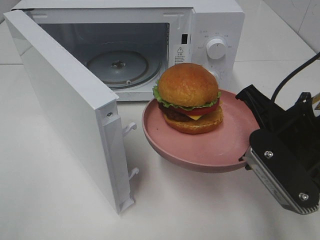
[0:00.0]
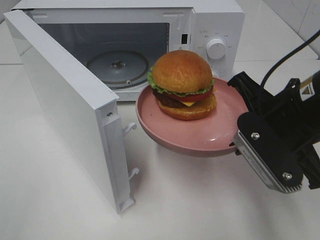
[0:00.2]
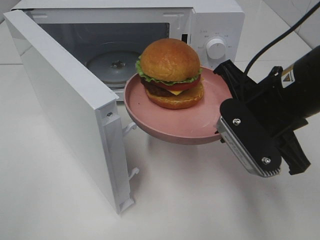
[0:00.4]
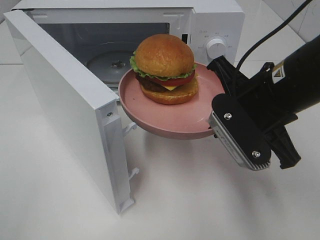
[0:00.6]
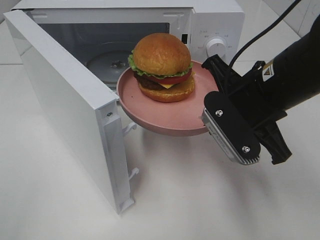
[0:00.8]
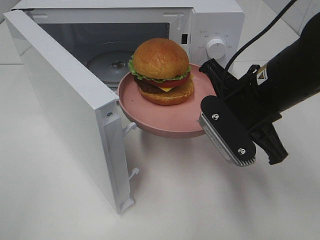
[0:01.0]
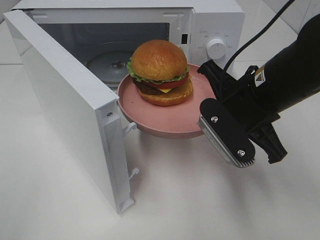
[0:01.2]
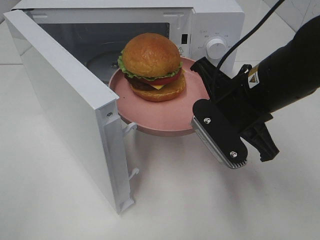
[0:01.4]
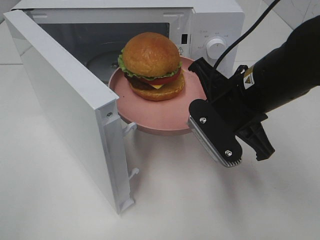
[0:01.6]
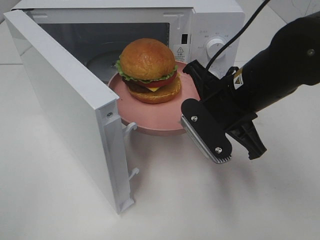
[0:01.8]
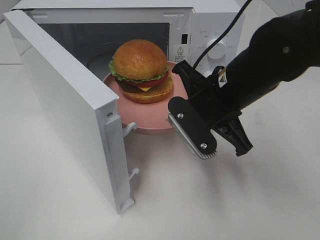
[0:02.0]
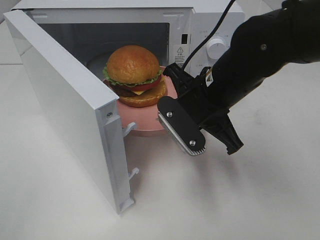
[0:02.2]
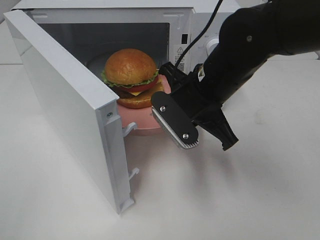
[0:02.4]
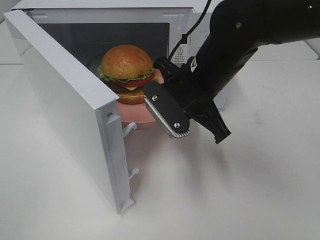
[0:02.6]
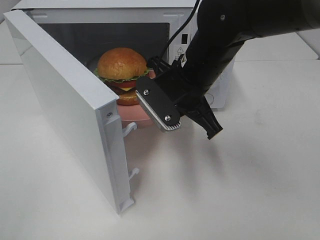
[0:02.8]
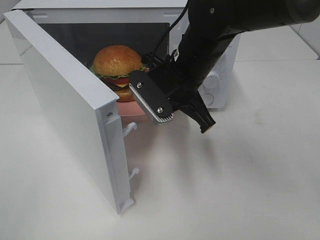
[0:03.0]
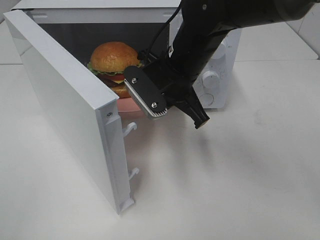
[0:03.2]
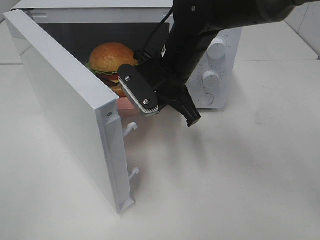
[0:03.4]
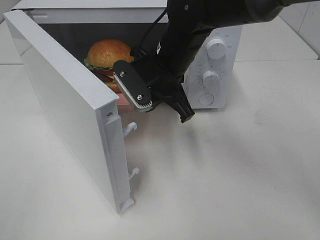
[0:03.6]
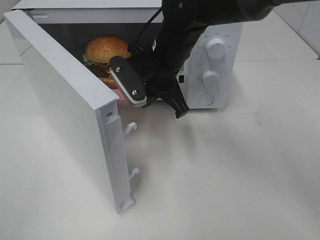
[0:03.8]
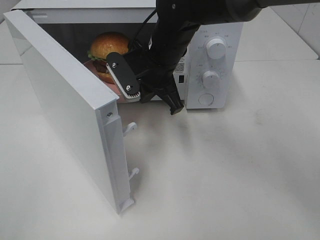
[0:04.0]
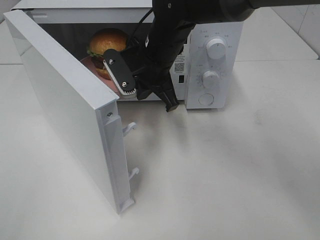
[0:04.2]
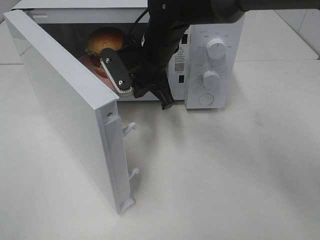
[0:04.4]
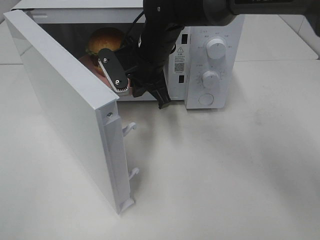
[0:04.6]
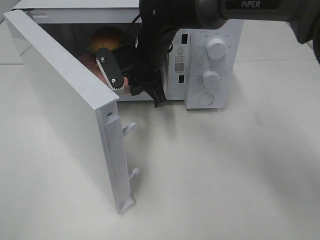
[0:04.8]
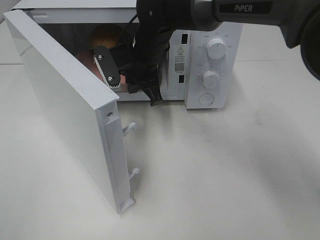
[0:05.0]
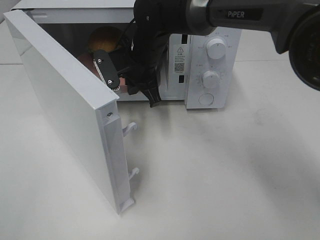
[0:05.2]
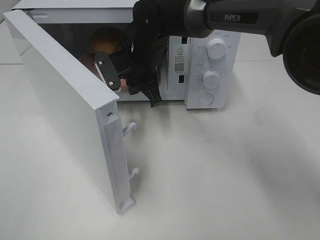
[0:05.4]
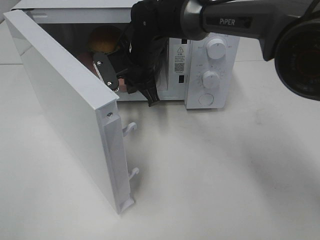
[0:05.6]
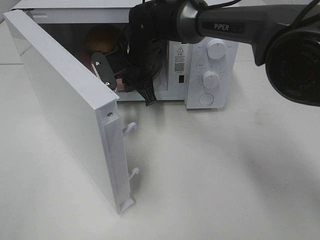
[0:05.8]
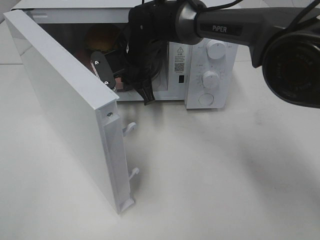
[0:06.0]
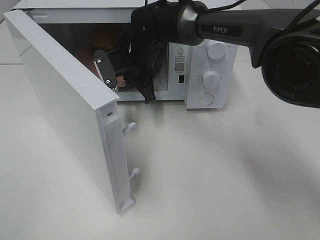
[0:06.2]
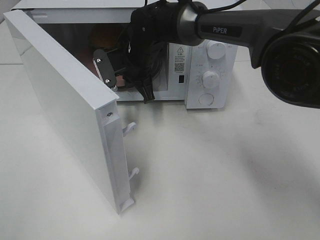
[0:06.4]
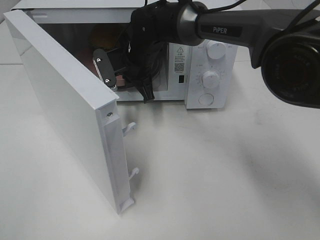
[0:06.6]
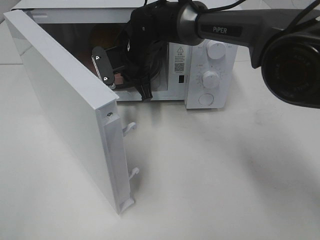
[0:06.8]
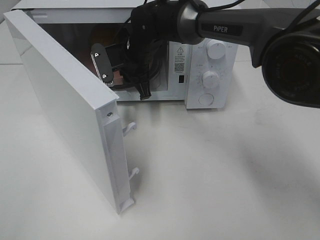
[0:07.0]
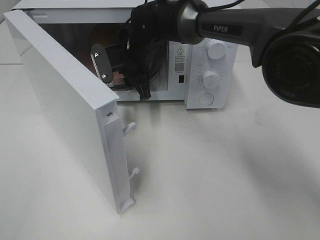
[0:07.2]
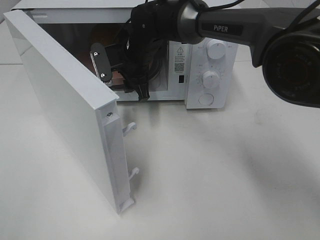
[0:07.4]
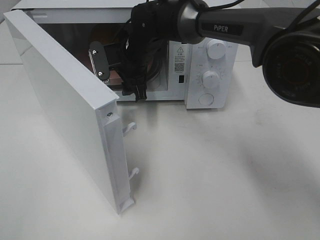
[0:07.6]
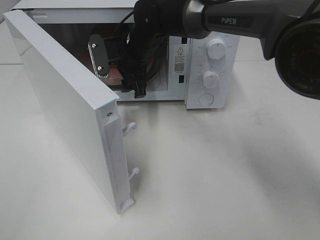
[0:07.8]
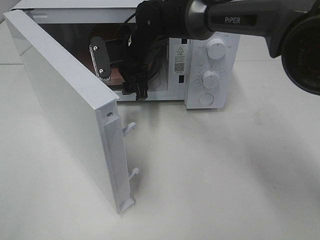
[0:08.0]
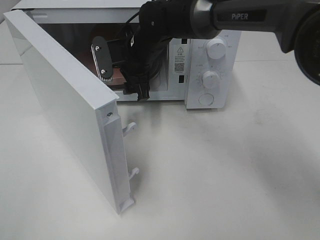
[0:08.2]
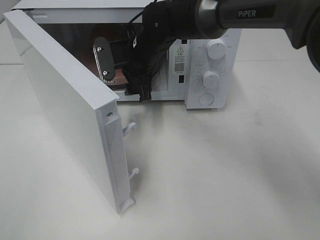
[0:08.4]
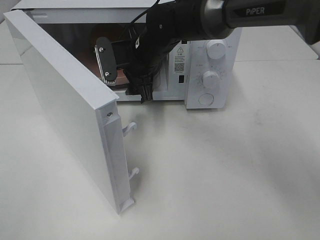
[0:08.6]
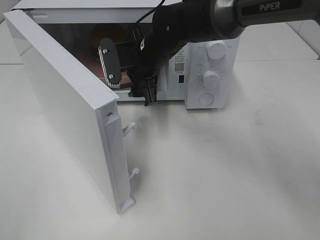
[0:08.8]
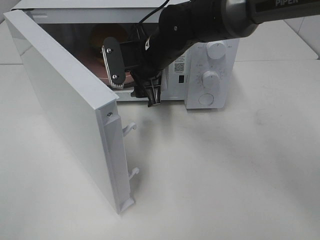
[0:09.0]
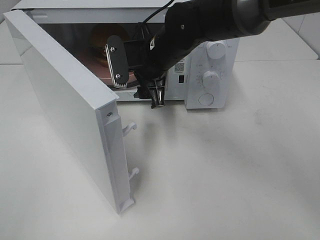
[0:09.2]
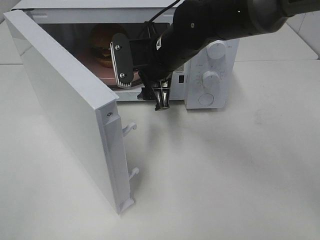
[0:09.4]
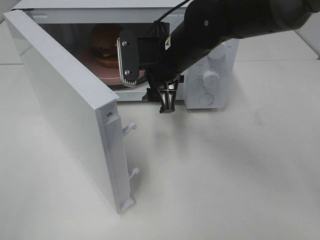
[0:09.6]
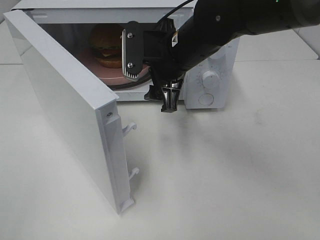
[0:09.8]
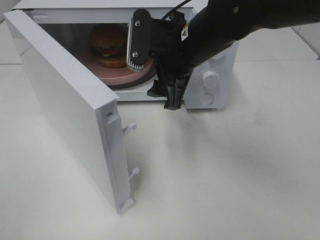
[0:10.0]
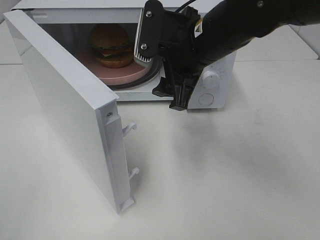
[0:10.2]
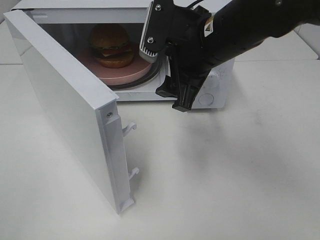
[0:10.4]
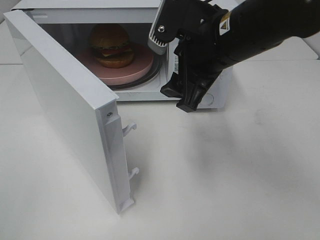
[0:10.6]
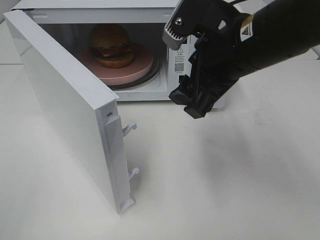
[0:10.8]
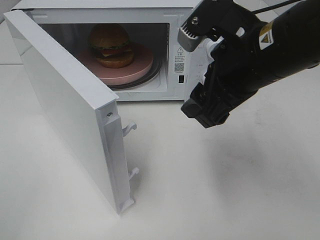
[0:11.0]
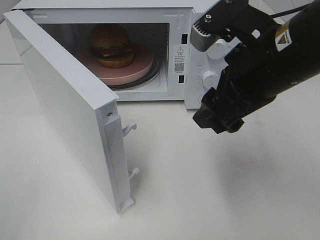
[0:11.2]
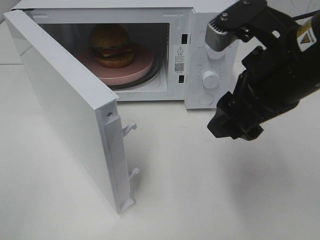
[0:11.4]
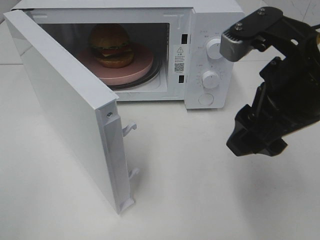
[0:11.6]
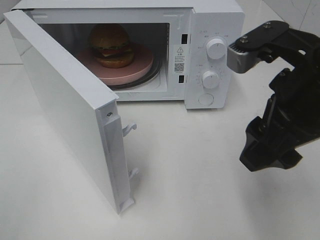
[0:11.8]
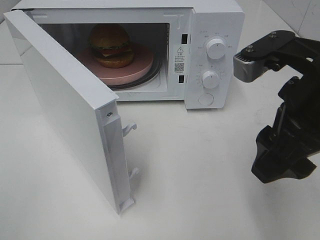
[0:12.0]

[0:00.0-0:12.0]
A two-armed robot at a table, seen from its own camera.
Task of the whole recording: Heat the burger.
Step, 0:00.0 to 0:07.0: Right hand: place the plate in the microwave.
0:00.0 to 0:01.6: The right gripper travels forward and to the left by approximately 10 cm.
0:01.6 to 0:03.0: The right gripper goes about 10 cm to the left and forward.
0:03.0 to 0:04.4: The right gripper travels forward by some 5 cm.
0:04.4 to 0:06.0: The right gripper shifts approximately 5 cm forward.
0:06.0 to 0:07.6: The right gripper opens up.
0:07.6 to 0:09.0: The right gripper goes roughly 5 cm backward.
0:09.0 to 0:10.4: The right gripper heads backward, to the right and upward, covering approximately 15 cm.
0:10.4 to 0:12.0: The right gripper travels backward and to the right by about 15 cm.

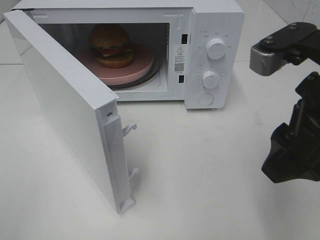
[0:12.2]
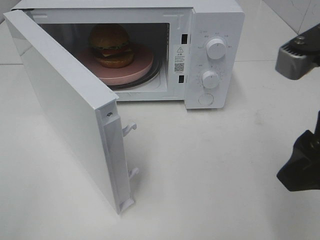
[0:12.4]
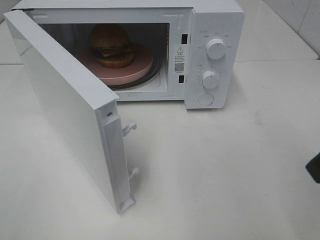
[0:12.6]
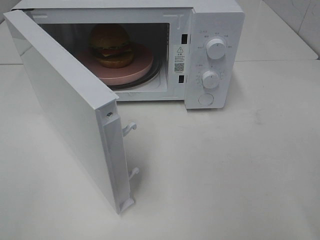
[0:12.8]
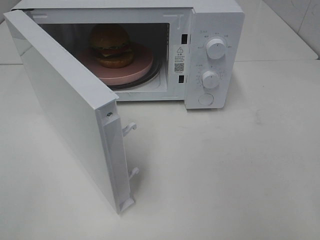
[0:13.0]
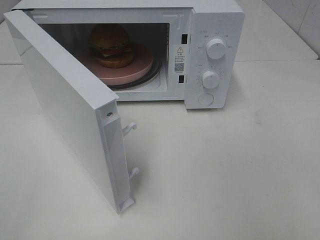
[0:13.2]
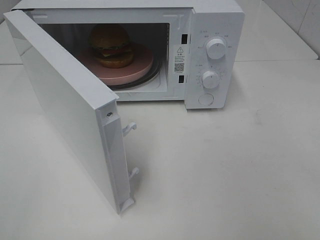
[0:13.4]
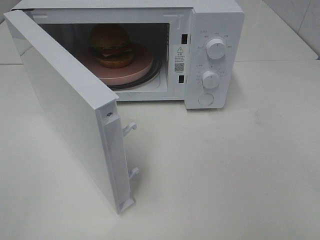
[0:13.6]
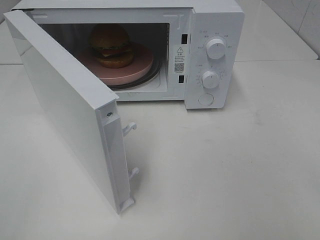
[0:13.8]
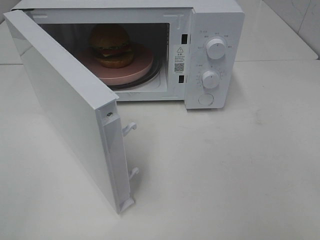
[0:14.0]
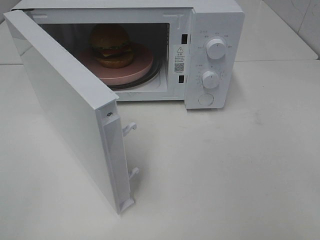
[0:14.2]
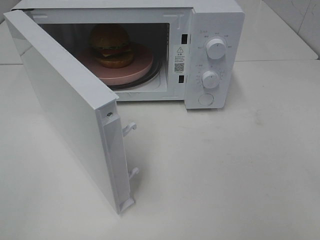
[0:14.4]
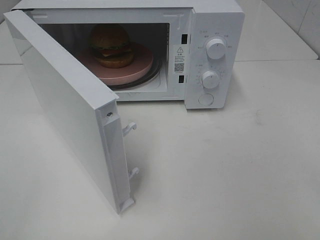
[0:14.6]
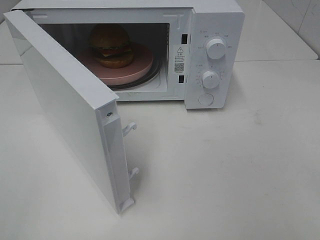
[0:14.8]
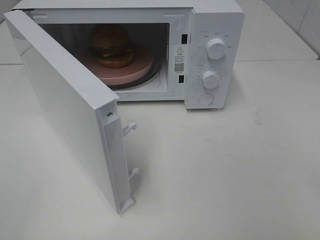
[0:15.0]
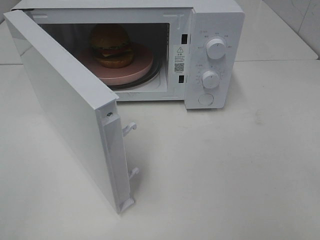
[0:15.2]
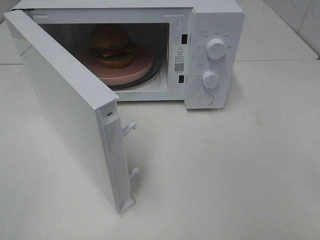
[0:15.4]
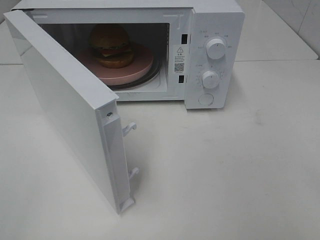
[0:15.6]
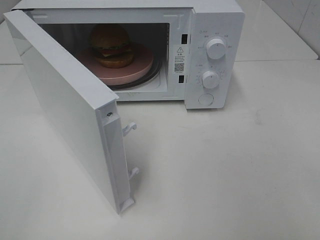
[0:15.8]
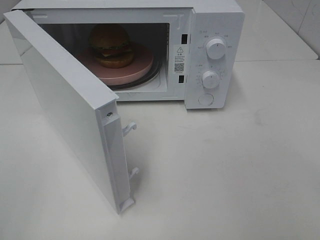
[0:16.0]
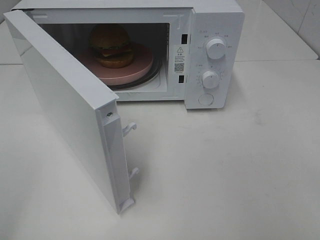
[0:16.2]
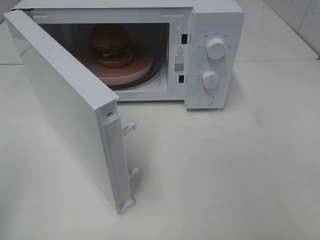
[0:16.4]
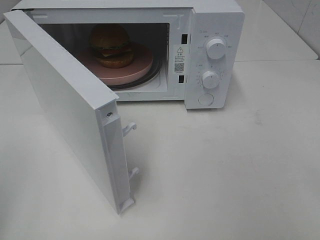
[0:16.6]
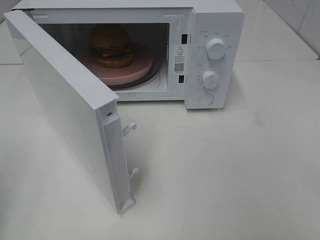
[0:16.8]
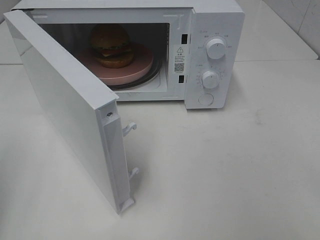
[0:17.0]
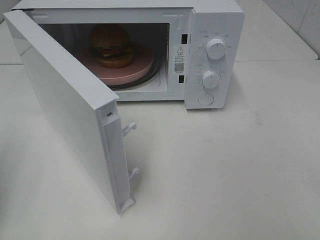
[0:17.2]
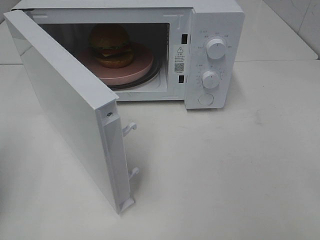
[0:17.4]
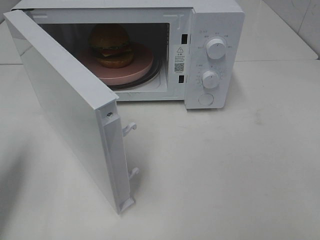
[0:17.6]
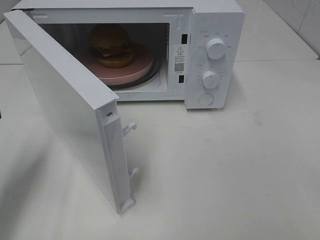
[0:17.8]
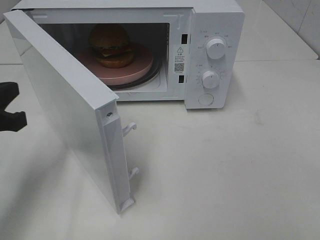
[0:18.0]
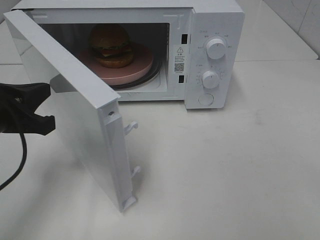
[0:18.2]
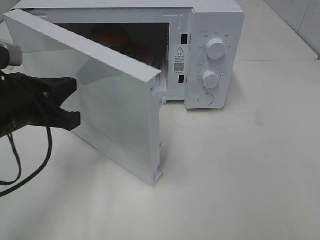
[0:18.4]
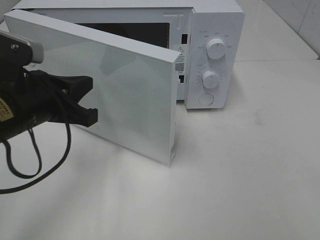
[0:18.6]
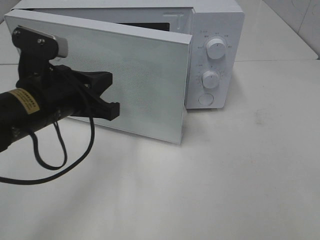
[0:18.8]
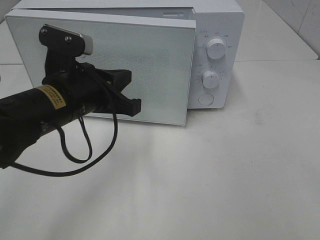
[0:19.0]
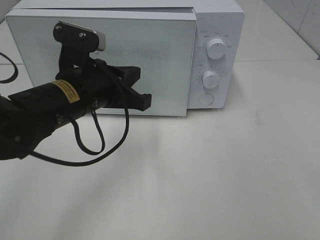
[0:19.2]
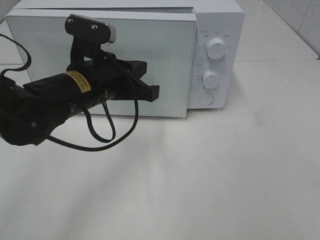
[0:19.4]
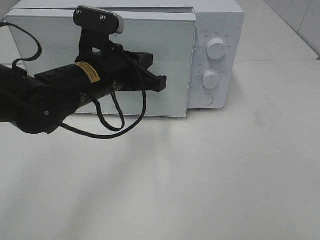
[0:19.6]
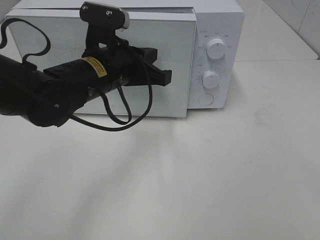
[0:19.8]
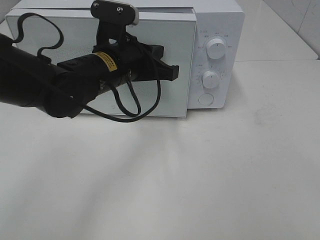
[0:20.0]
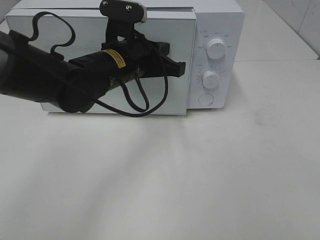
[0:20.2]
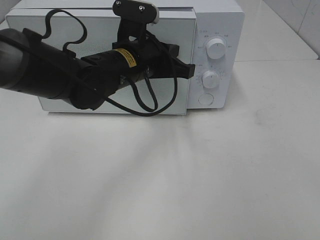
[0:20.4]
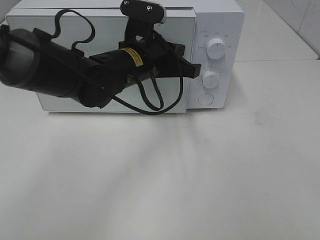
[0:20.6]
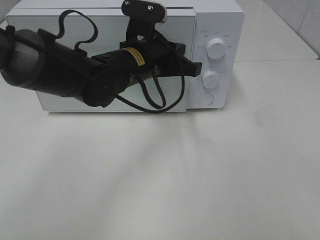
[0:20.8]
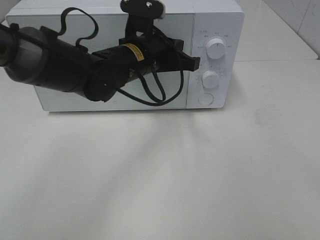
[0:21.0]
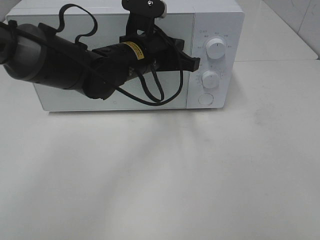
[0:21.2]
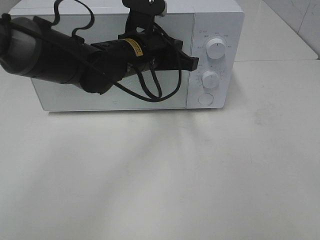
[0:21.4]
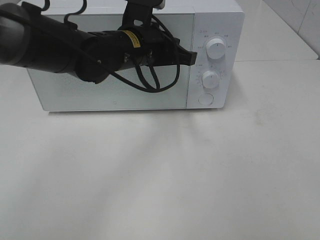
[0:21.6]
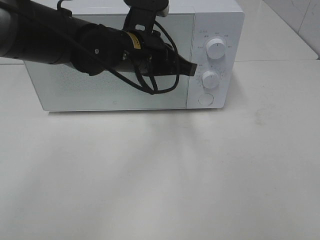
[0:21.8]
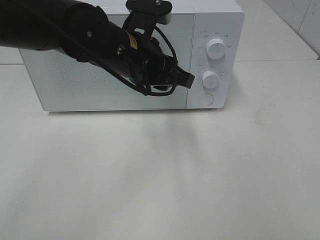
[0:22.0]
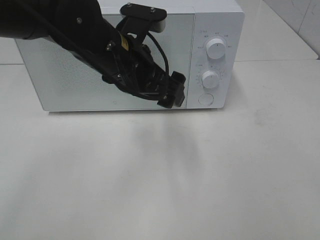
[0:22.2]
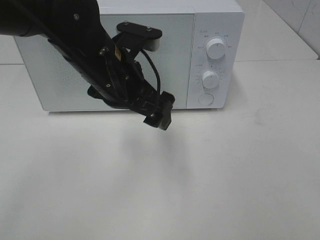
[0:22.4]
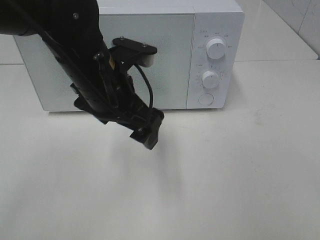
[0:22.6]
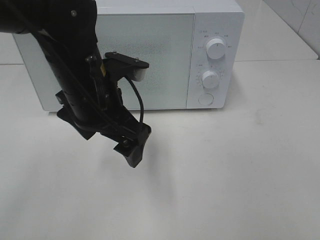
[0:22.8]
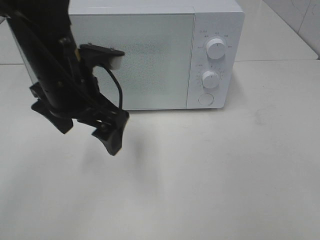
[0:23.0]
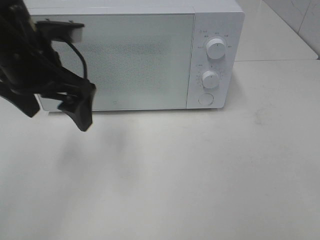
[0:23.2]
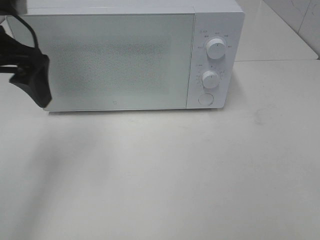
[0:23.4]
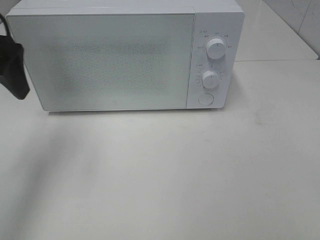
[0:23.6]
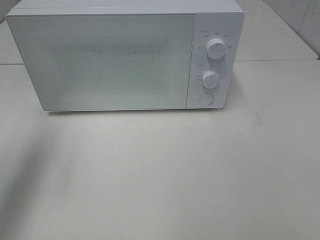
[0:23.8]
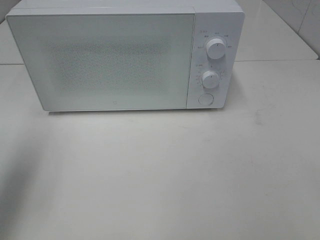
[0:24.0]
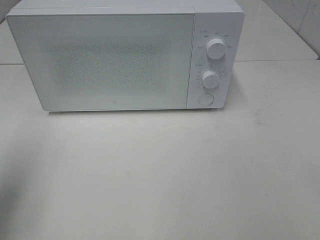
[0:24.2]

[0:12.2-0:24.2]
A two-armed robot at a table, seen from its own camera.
Task of the whole recording: Heat the burger.
Step, 0:12.2 to 0:21.6: Left hand: close the microwave door.
0:12.2 to 0:13.8: The right gripper goes some 20 cm backward and to the right.
0:13.8 to 0:15.2: The two grippers keep their place.
0:16.6 to 0:18.2: The left gripper is displaced forward, to the right and downward by some 20 cm.
0:18.2 to 0:19.8: The left gripper heads to the right and forward, covering some 20 cm.
0:19.8 to 0:21.2: The left gripper heads forward, covering roughly 5 cm.
0:21.2 to 0:22.6: The left gripper shifts roughly 10 cm backward, and opens its fingers.
0:22.6 to 0:24.2: The left gripper goes roughly 25 cm to the left and backward.
